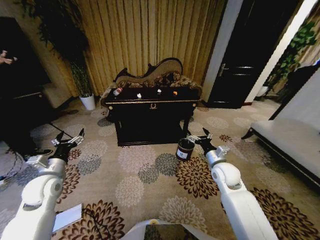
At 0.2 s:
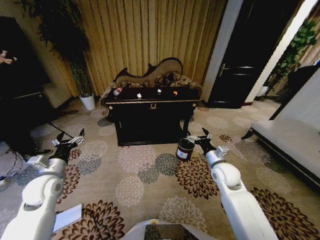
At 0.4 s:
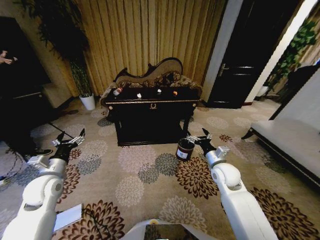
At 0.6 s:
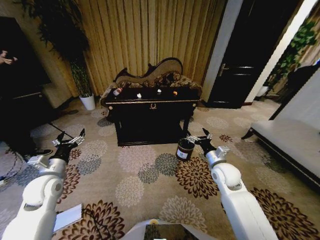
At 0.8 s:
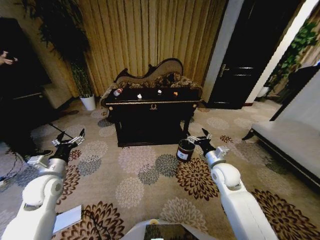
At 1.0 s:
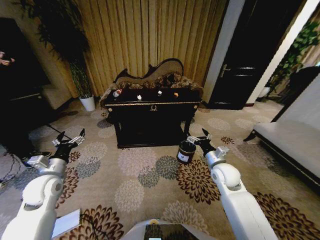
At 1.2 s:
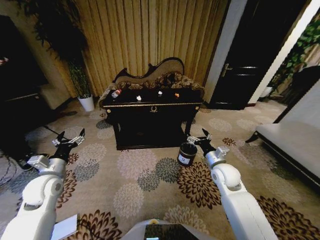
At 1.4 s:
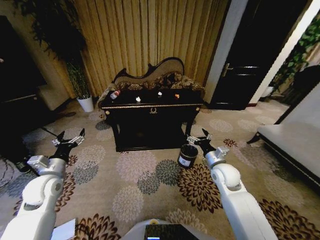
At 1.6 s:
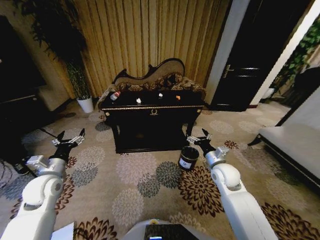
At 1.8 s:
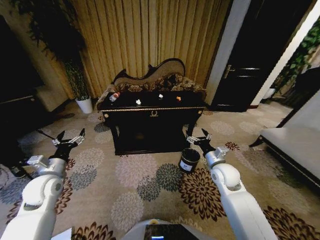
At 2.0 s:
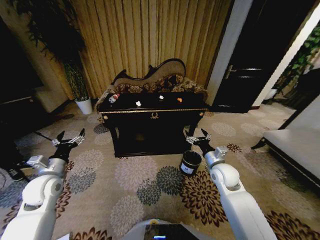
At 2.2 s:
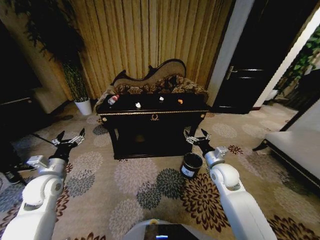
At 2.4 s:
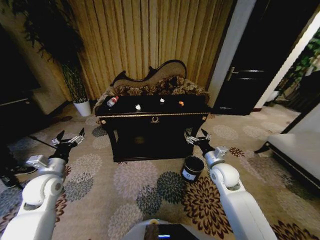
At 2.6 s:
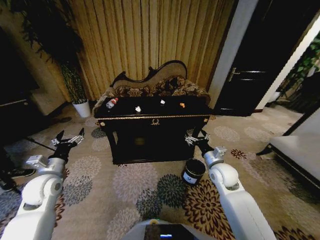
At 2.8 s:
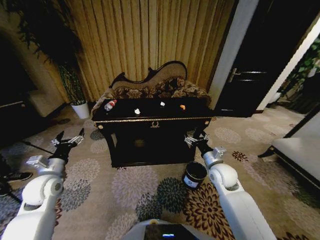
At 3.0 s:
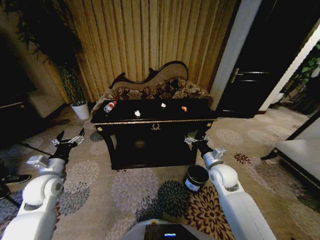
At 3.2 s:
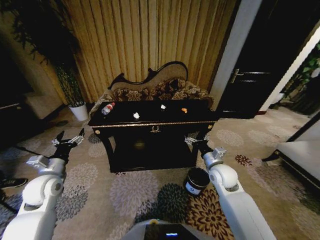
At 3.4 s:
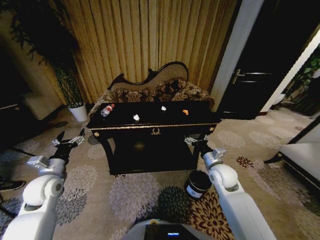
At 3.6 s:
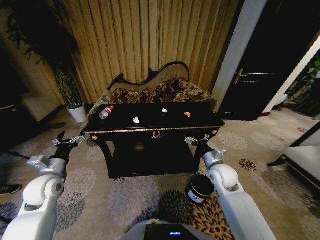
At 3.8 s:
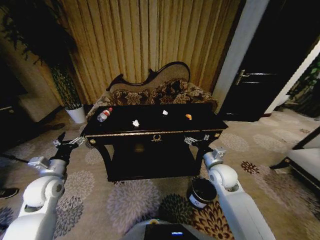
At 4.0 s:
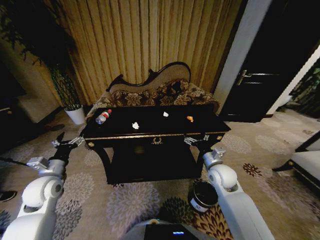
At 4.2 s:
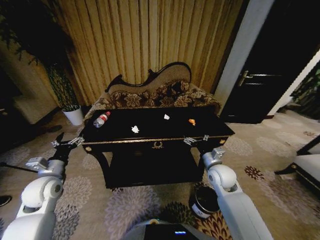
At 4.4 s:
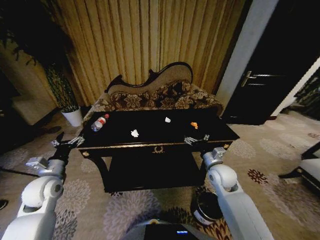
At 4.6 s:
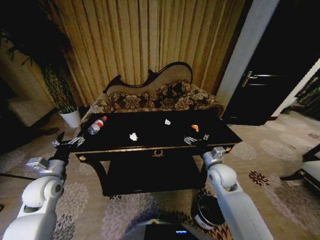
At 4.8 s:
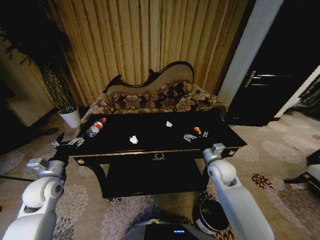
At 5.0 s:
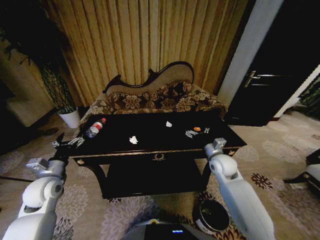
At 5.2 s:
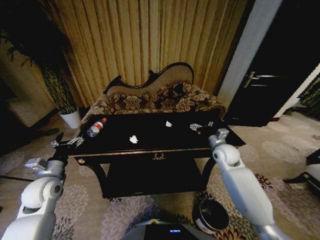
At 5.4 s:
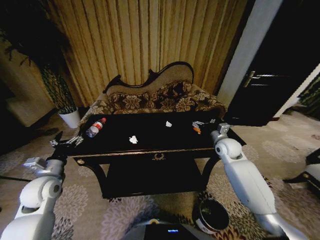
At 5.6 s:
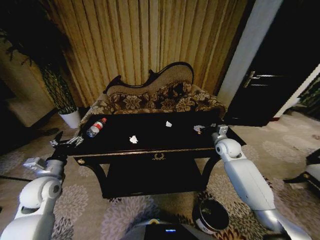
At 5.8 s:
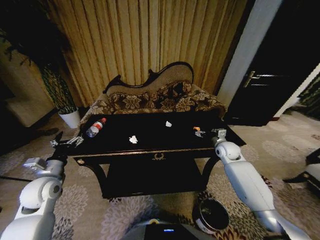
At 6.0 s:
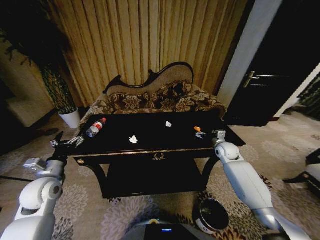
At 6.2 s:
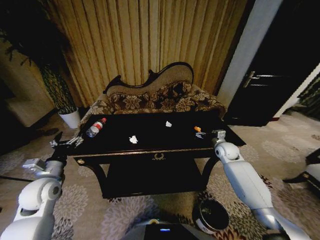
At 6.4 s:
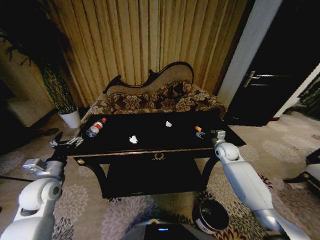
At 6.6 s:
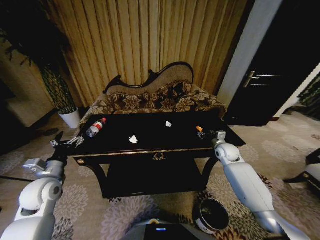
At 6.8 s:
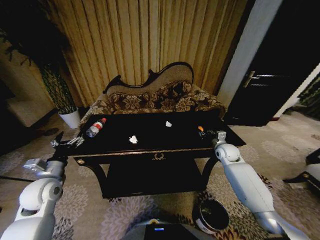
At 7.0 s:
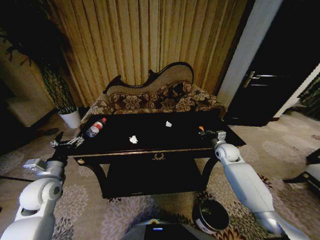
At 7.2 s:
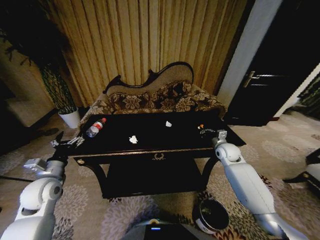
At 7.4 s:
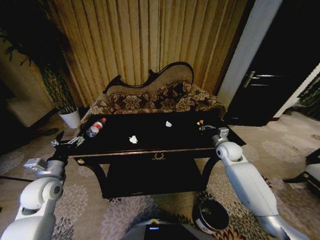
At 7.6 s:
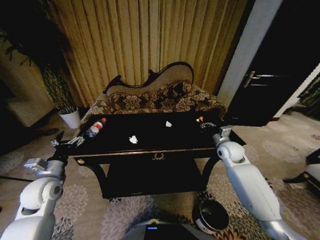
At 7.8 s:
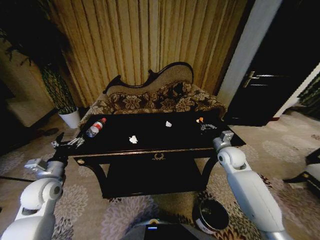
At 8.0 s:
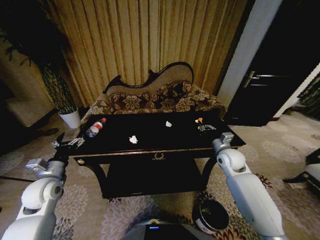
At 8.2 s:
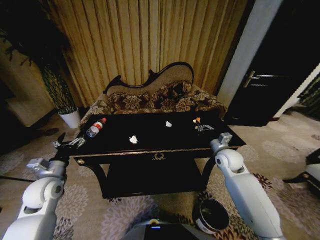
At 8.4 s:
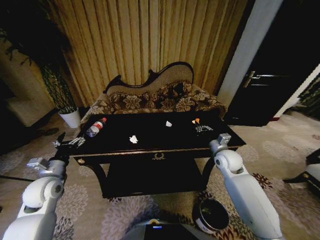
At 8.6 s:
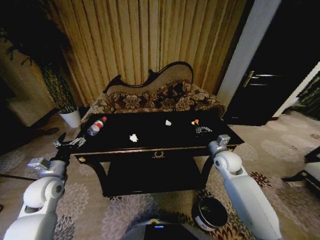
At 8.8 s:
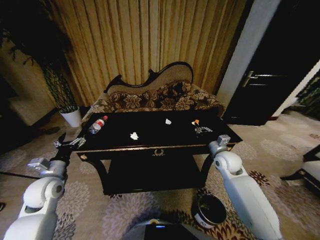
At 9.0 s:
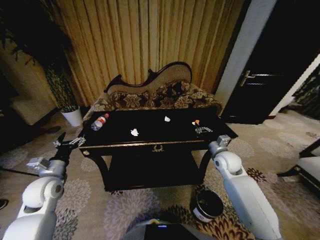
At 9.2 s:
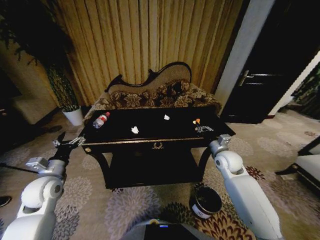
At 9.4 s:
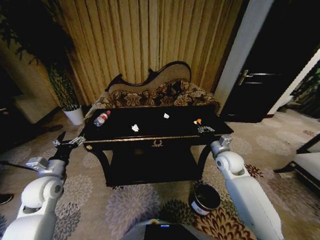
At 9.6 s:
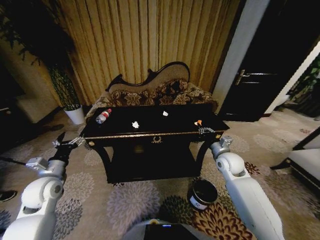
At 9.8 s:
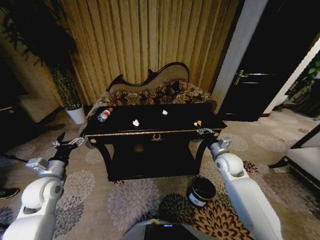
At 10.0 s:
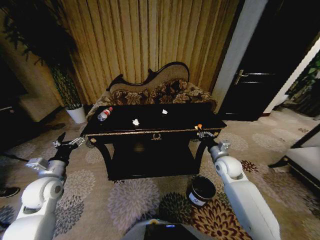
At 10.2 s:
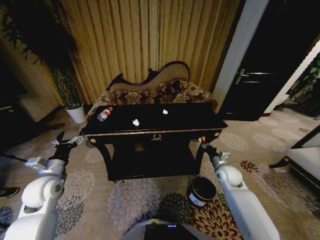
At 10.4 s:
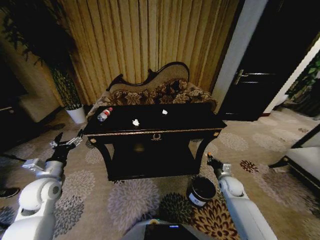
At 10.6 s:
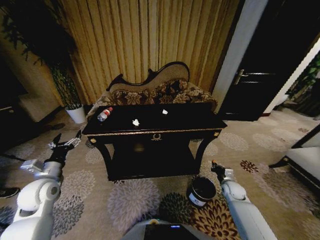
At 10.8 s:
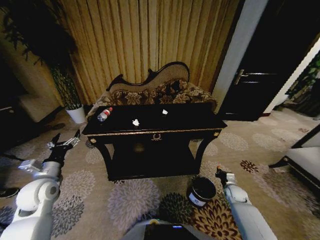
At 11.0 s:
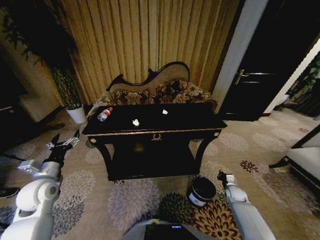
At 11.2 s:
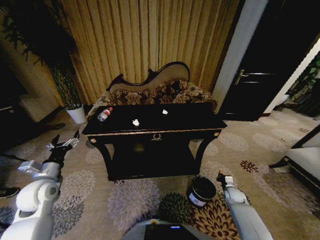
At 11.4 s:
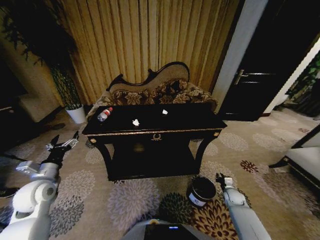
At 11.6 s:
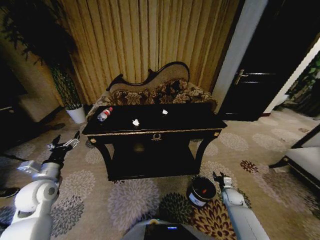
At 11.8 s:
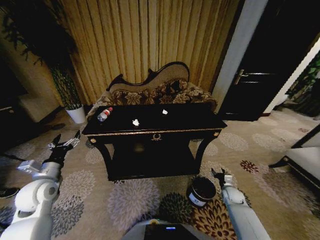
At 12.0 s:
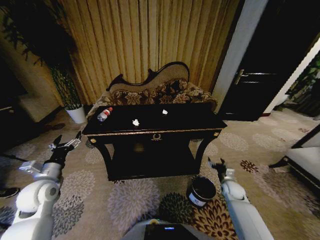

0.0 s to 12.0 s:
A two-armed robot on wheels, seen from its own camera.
Task of the whole recording: Move to the front of the table and place the trash on the table into the trash bin.
4.4 to 6.0 s: The right gripper shifts approximately 15 cm forward and to the right.
6.0 to 7.6 s: The right gripper moves some 5 cm, and closes its fingers.
7.6 to 9.0 s: The right gripper changes place by approximately 5 cm.
9.0 to 10.4 s: The right gripper moves downward and to the right, roughly 15 cm.
10.4 to 12.0 s: The right gripper moves some 10 cm downward and comes back, and opens up.

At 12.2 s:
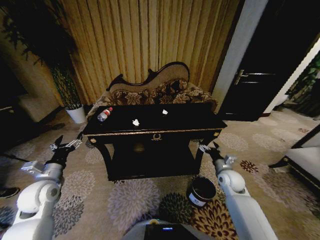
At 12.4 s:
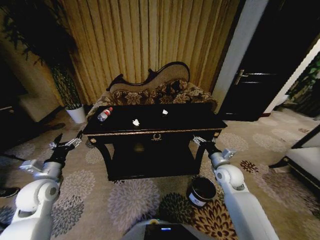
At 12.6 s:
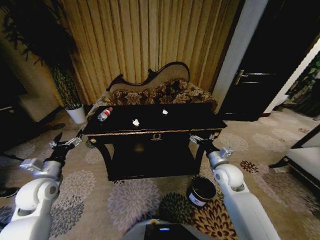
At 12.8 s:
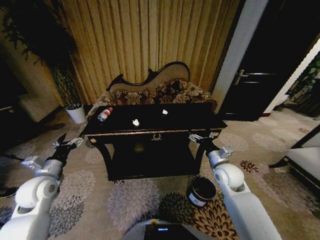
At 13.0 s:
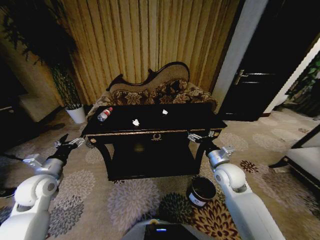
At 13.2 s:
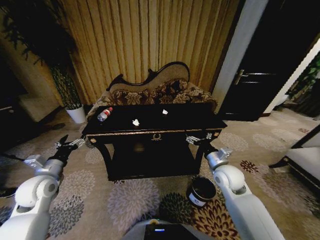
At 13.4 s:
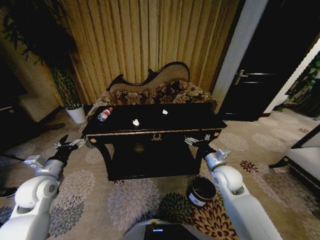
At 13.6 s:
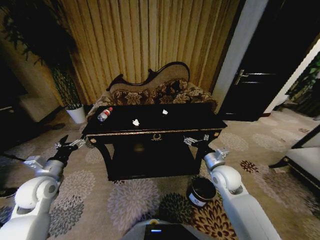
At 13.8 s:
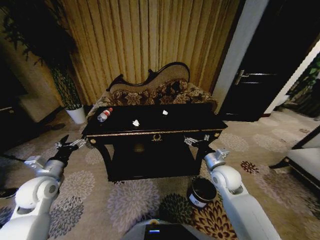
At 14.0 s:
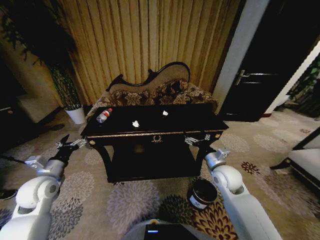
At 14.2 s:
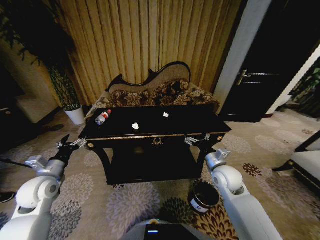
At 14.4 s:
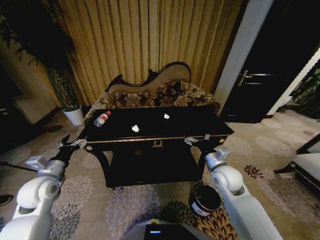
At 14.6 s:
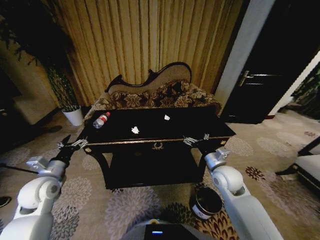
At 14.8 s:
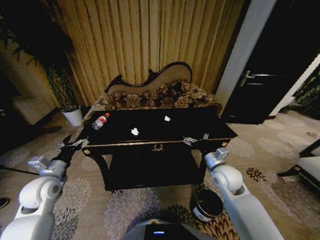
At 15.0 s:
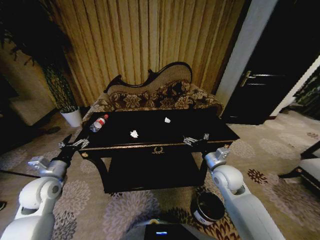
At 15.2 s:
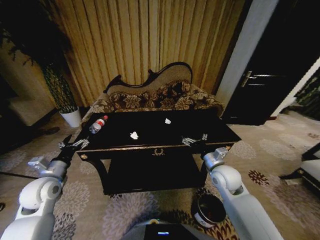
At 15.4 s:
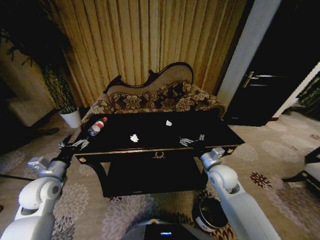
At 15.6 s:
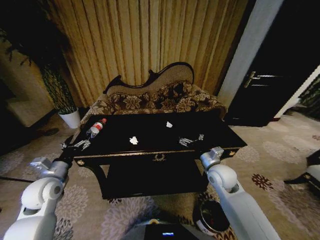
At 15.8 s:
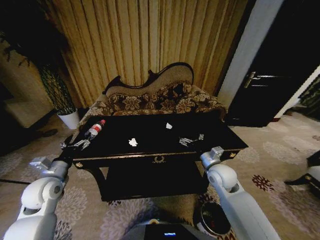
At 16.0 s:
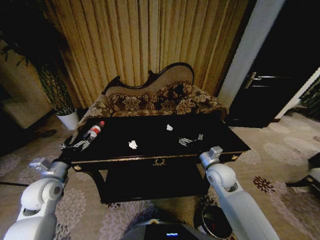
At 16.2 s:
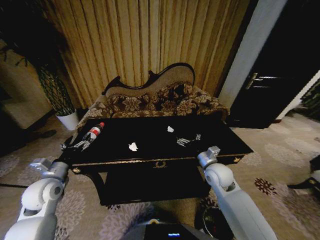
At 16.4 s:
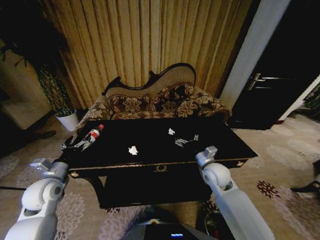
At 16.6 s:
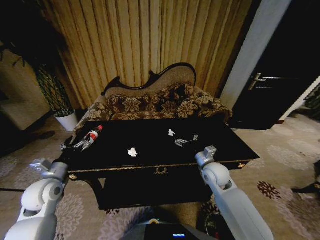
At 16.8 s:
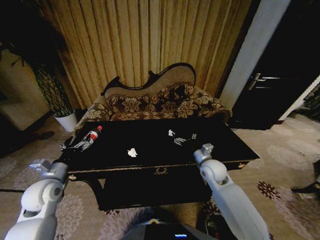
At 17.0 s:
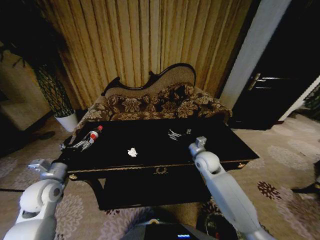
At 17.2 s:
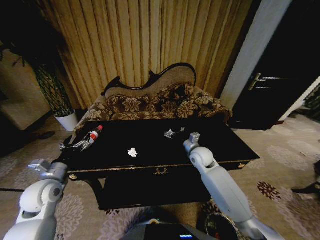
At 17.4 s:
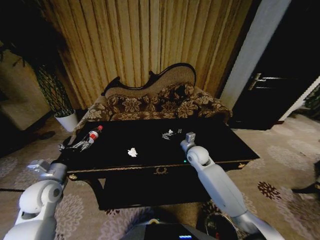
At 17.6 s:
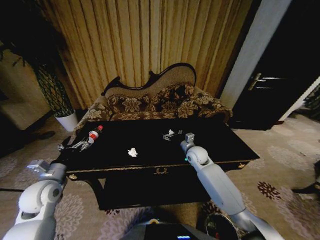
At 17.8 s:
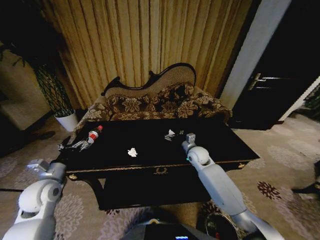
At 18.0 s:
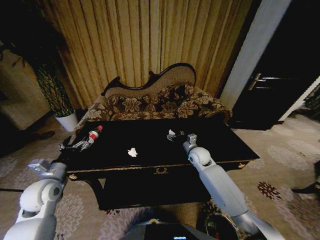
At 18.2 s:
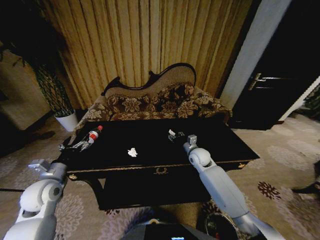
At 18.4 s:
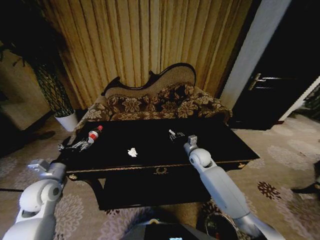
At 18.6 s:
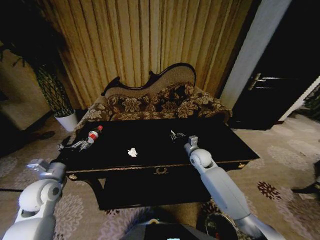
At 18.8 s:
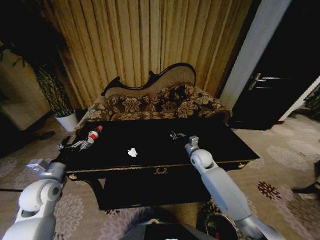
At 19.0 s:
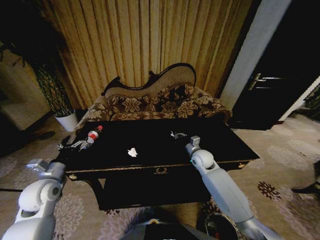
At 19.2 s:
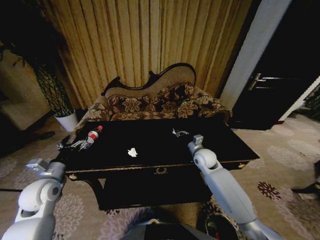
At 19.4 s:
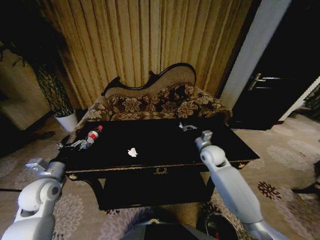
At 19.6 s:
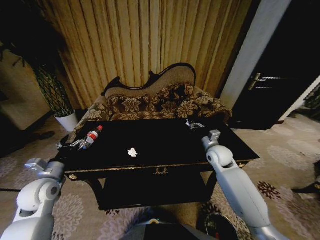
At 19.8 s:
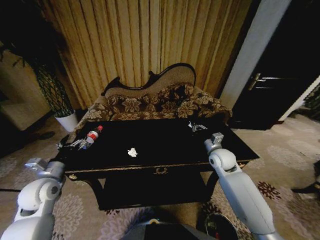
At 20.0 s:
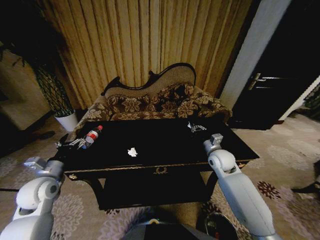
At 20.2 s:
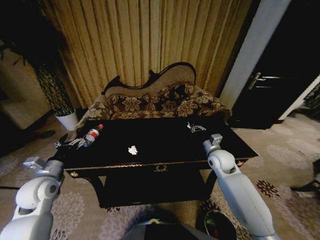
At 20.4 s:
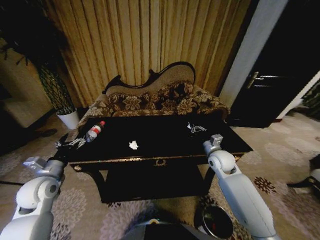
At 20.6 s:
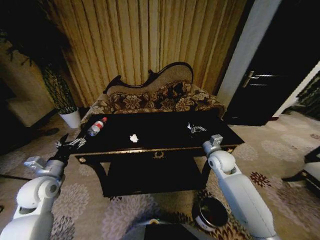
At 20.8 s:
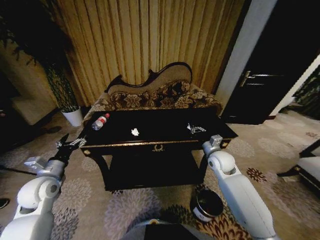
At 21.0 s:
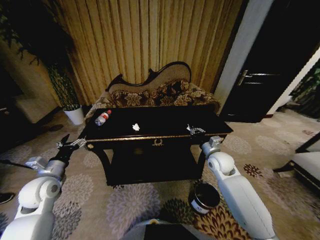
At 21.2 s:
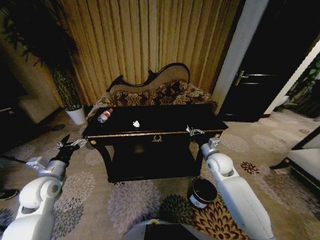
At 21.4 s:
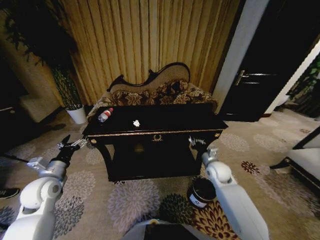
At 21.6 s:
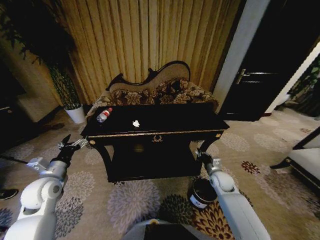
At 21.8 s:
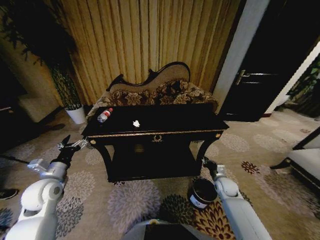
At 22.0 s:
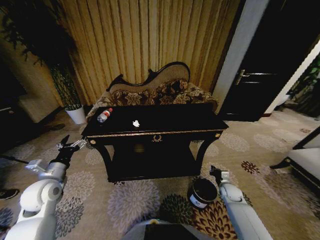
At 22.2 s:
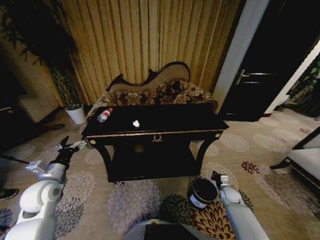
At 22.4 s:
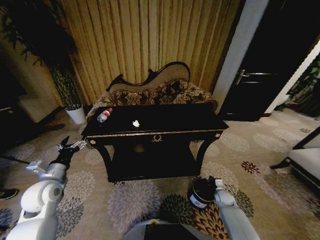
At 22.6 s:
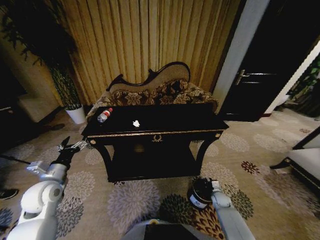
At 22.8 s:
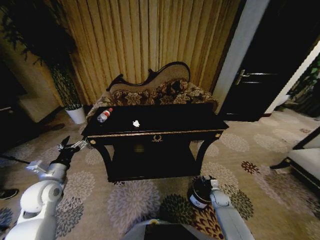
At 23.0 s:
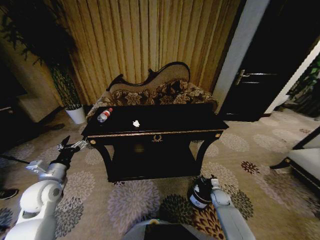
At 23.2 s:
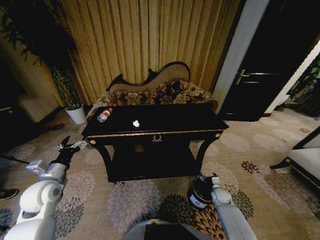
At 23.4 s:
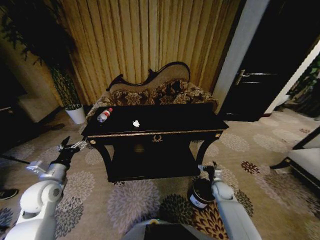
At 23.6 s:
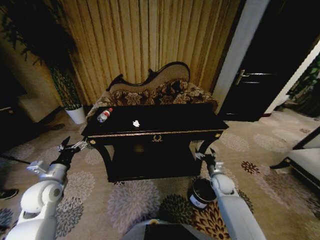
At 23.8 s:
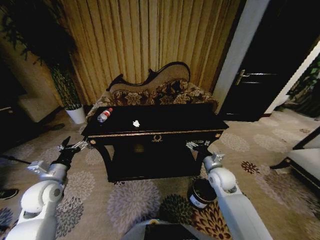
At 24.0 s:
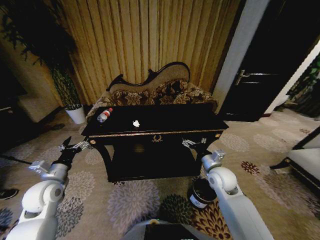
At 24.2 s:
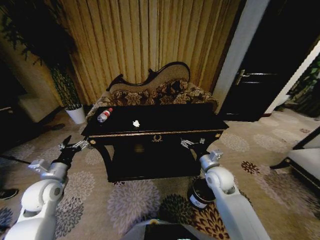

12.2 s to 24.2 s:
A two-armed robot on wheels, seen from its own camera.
Task of the whole recording: Move to the front of the table and place the trash on the table into the trash bin.
12.2 to 13.8 s: The right gripper goes approximately 10 cm upward and to the left.
16.6 to 18.2 s: The right gripper moves forward, roughly 10 cm, and closes up.
18.2 to 19.8 s: The right gripper goes some 10 cm to the right and upward, and closes its fingers.
21.2 to 22.6 s: The right gripper moves downward, approximately 30 cm.
22.6 to 24.2 s: The right gripper moves upward and to the left, about 30 cm, and opens up.
